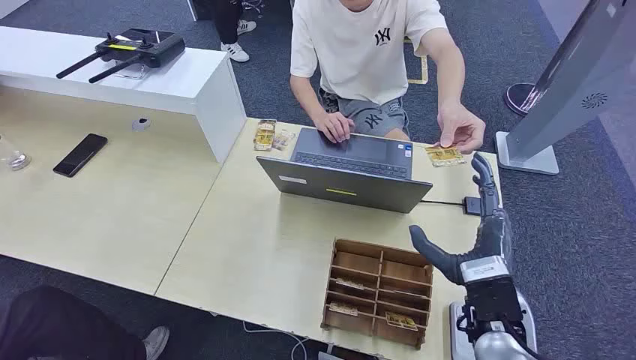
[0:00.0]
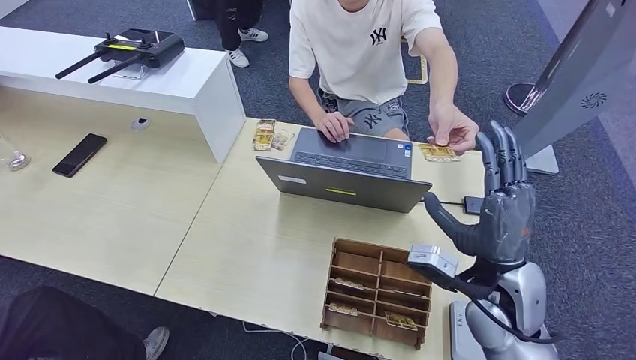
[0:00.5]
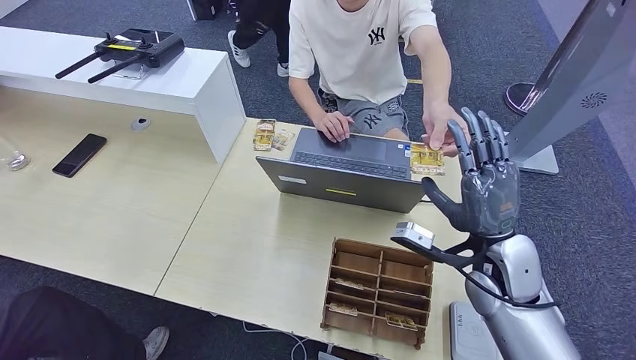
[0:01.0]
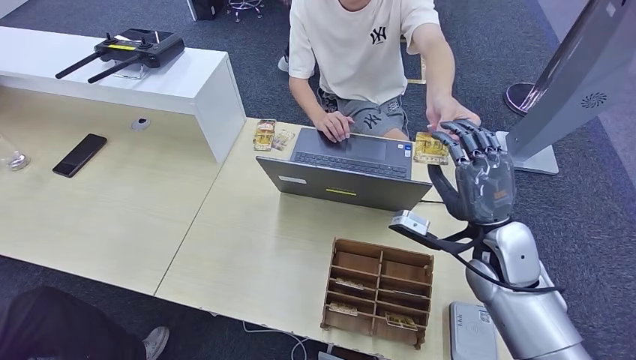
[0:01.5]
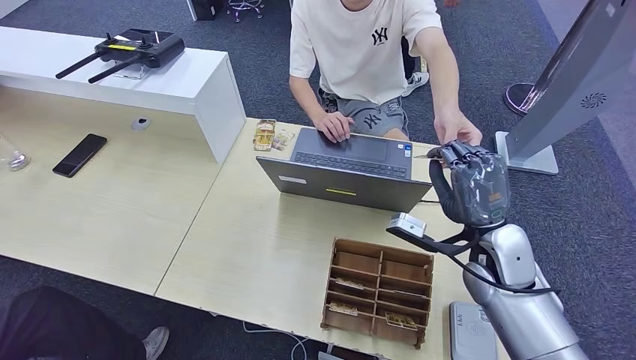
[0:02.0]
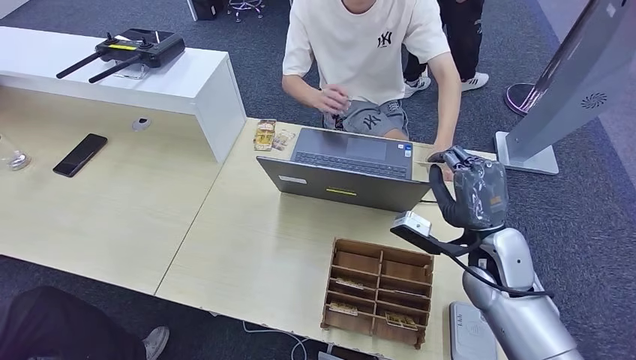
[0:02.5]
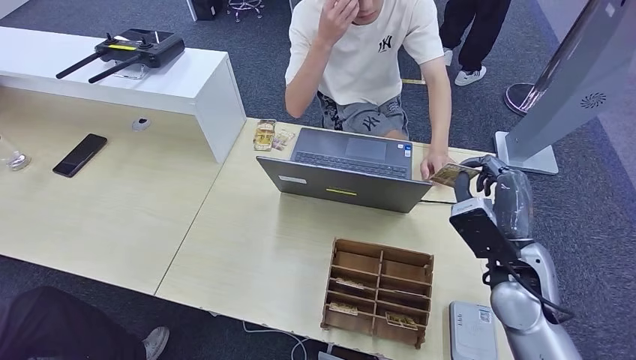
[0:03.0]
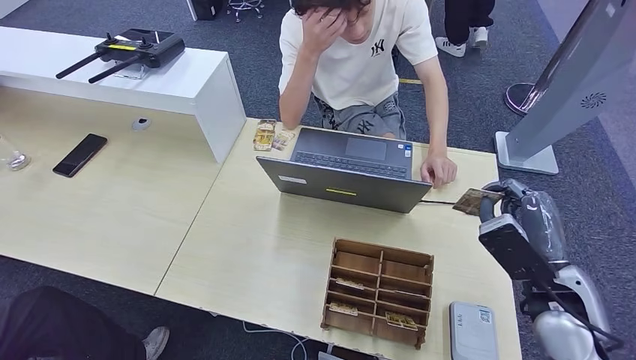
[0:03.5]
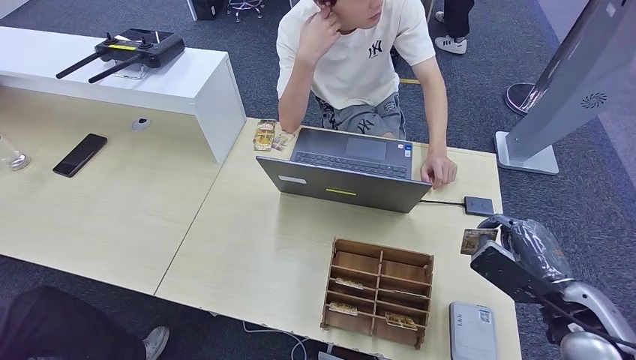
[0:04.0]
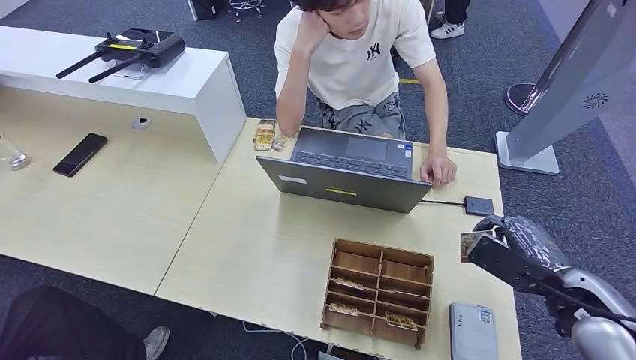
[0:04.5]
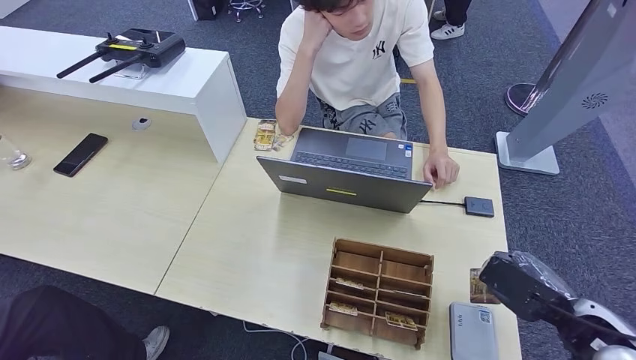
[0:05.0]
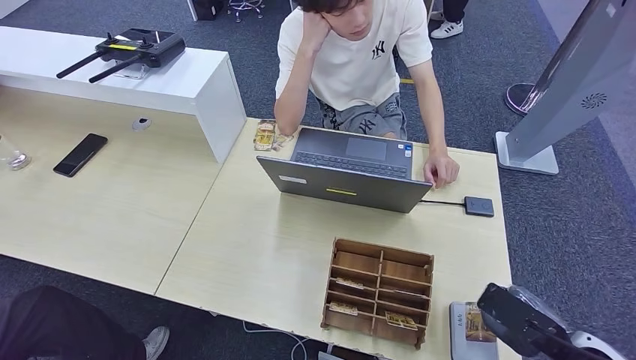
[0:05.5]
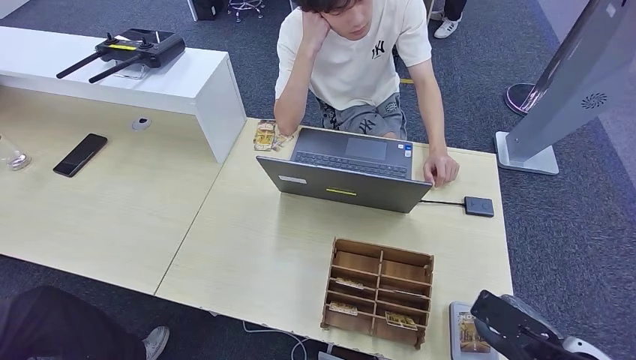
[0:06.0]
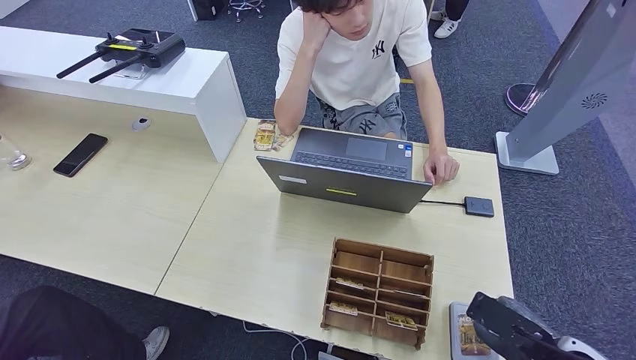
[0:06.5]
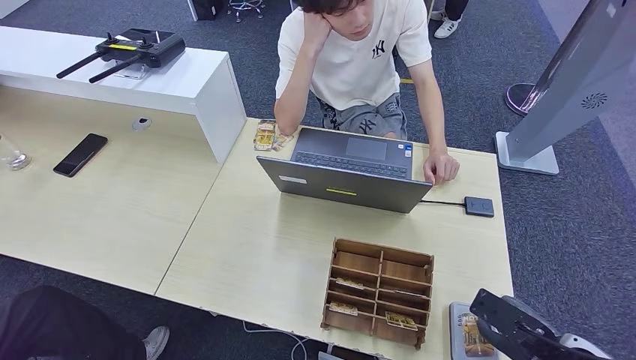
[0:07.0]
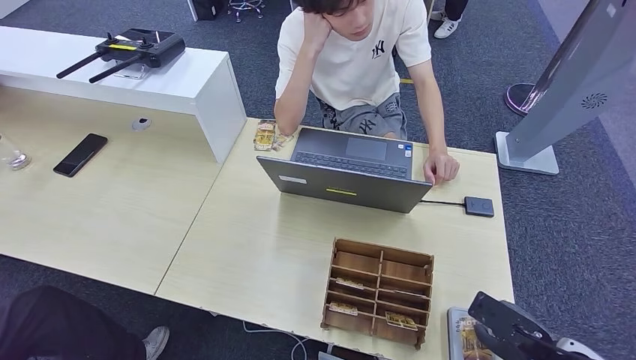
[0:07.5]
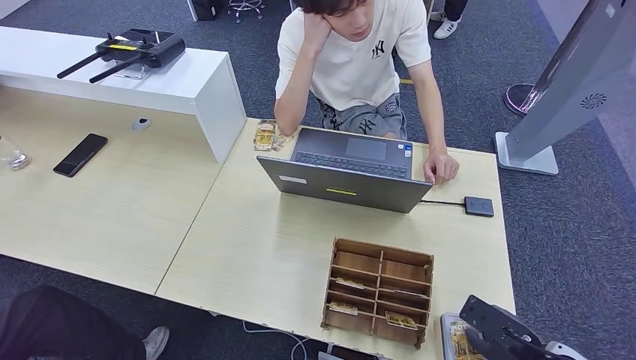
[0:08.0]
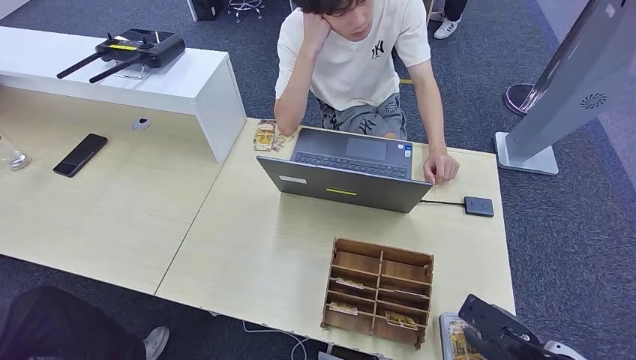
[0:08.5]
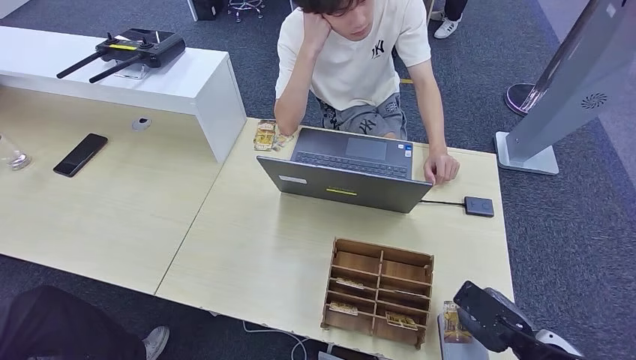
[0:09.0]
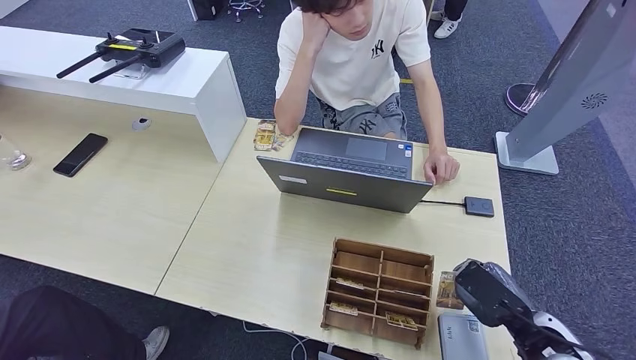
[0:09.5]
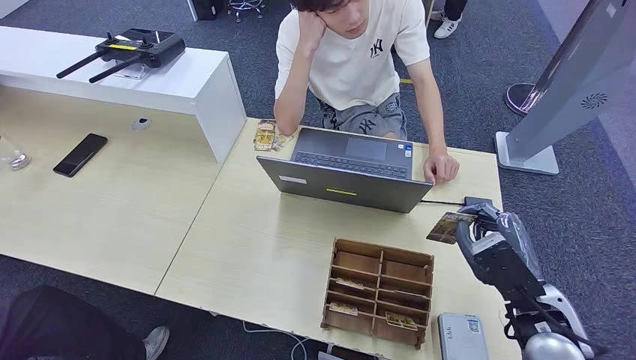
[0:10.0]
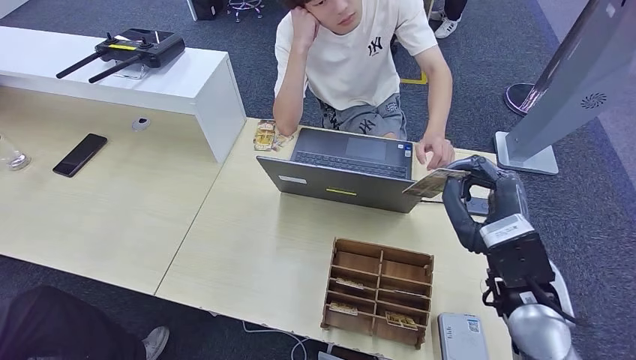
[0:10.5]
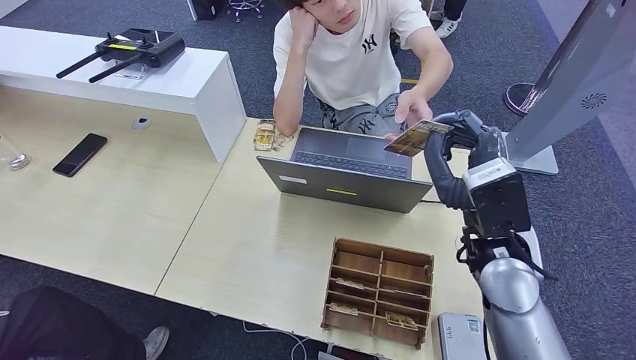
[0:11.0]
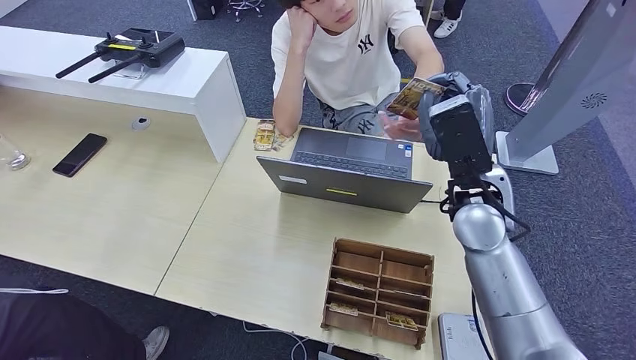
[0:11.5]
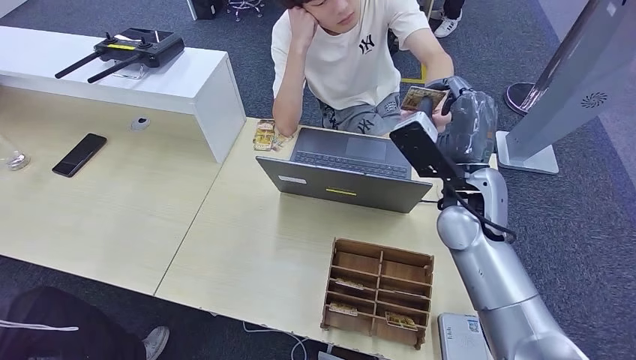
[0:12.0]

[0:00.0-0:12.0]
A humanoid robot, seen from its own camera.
Step, 0:00.0 to 0:02.0: Take the ID card from the person's hand.
Step, 0:02.5 to 0:07.0: Place the ID card on the card reader.
0:02.0 to 0:04.0: The right hand shifts some 15 cm to the right and backward.
0:04.0 to 0:06.0: The right hand heads backward, covering about 5 cm.
0:06.0 to 0:08.0: The hands move only a little.
0:08.0 to 0:10.0: The right hand moves to the left, upward and forward, approximately 15 cm.
0:10.0 to 0:12.0: The right hand shifts some 20 cm to the left, forward and upward.

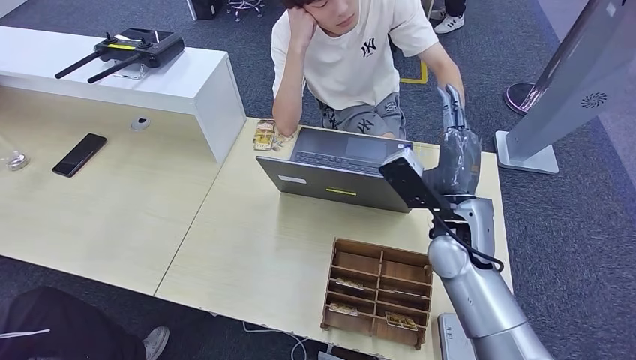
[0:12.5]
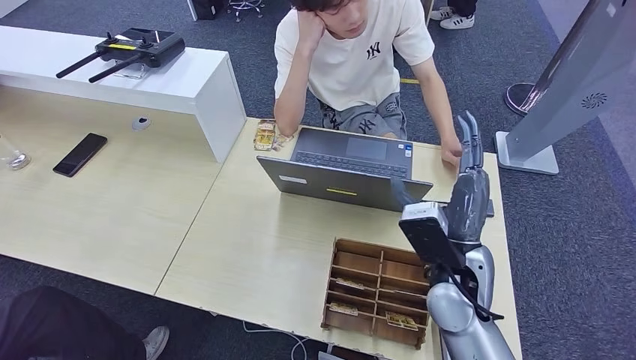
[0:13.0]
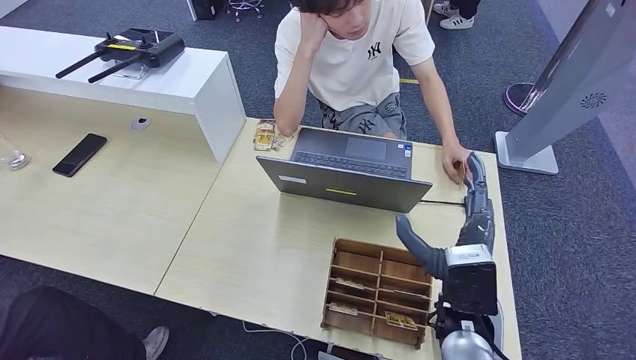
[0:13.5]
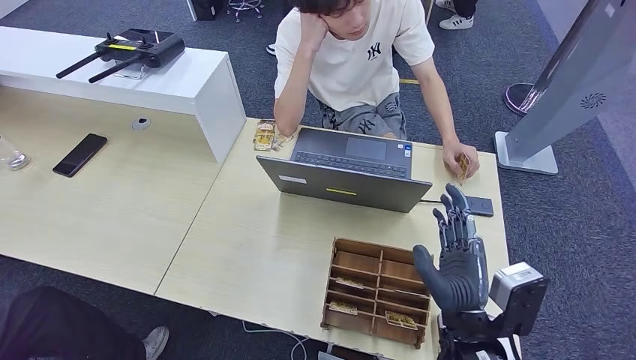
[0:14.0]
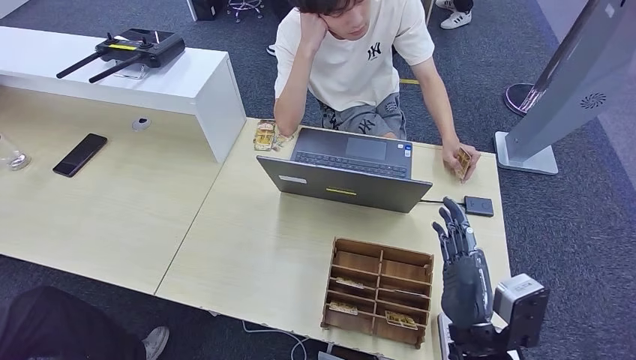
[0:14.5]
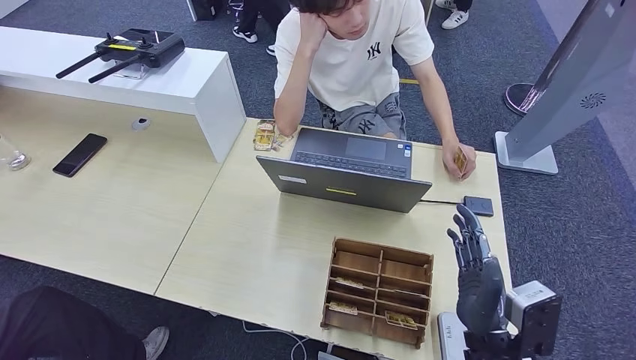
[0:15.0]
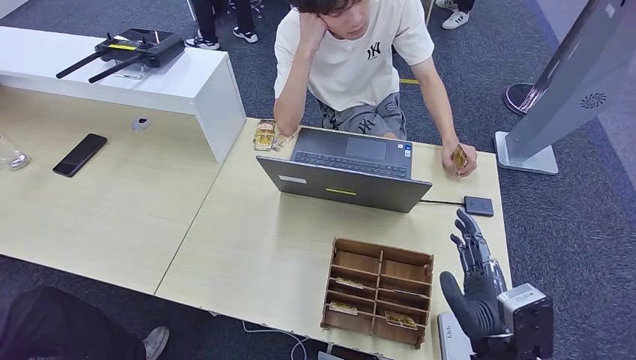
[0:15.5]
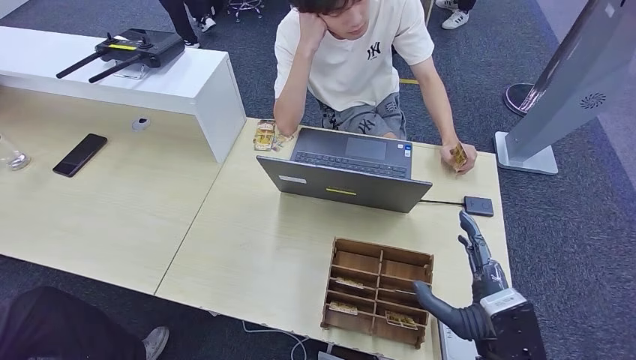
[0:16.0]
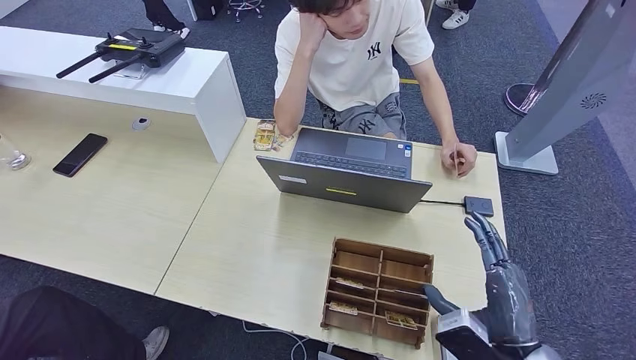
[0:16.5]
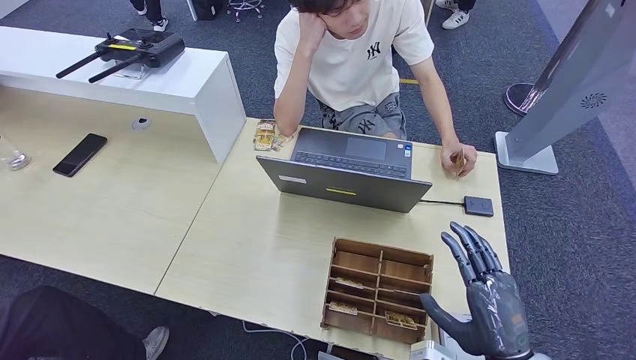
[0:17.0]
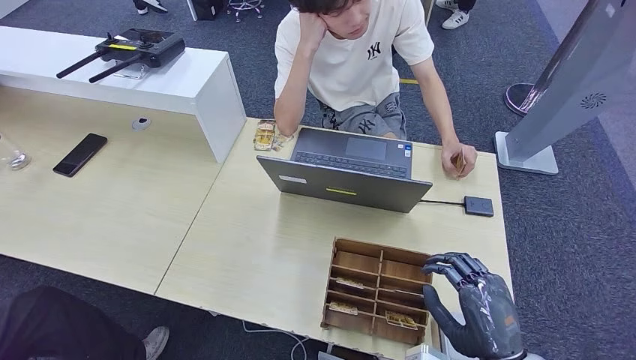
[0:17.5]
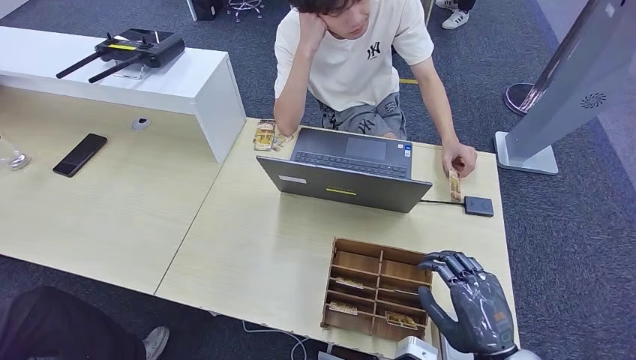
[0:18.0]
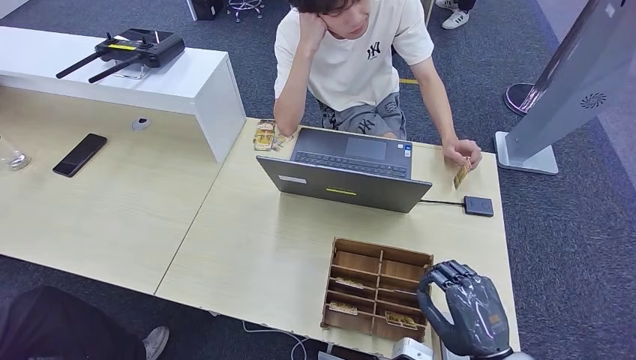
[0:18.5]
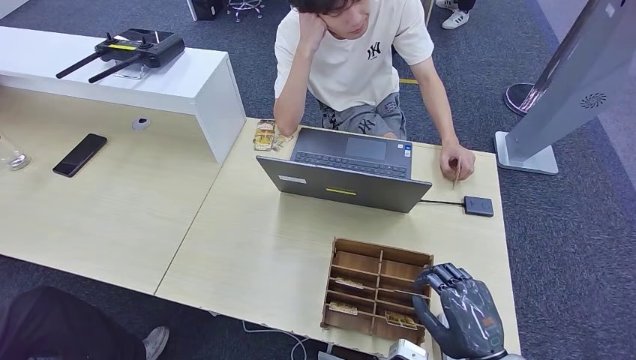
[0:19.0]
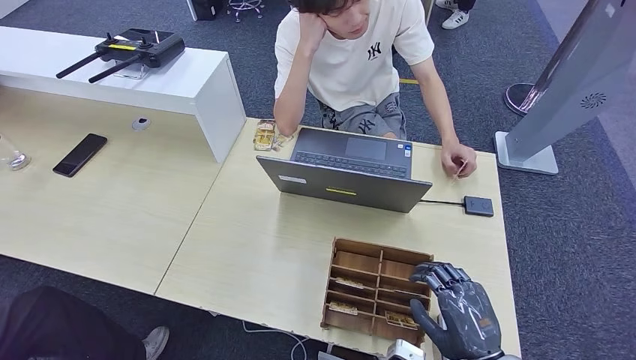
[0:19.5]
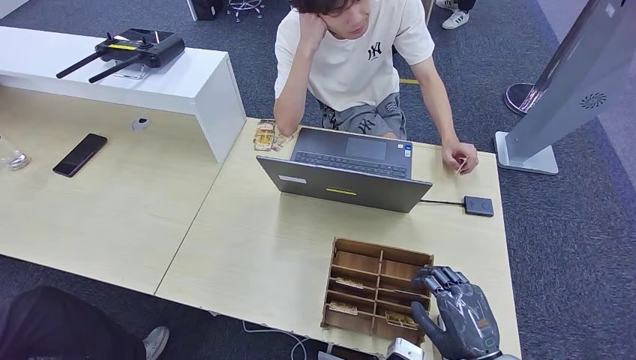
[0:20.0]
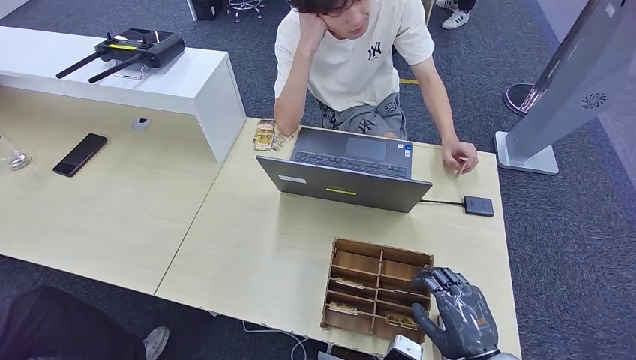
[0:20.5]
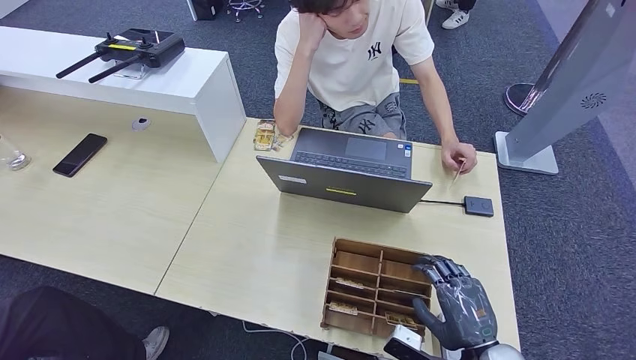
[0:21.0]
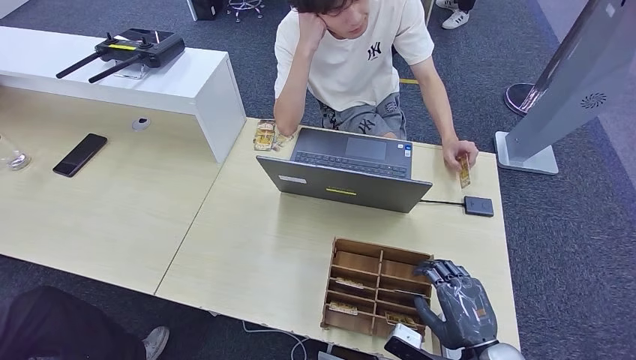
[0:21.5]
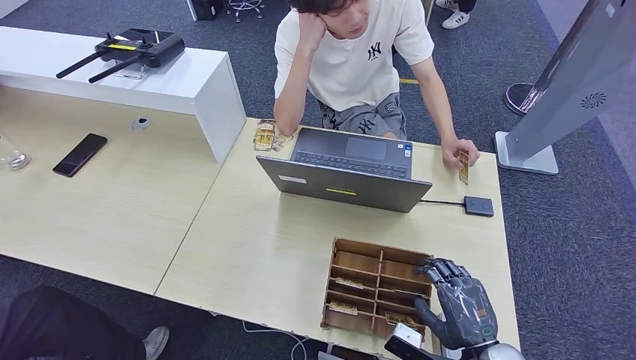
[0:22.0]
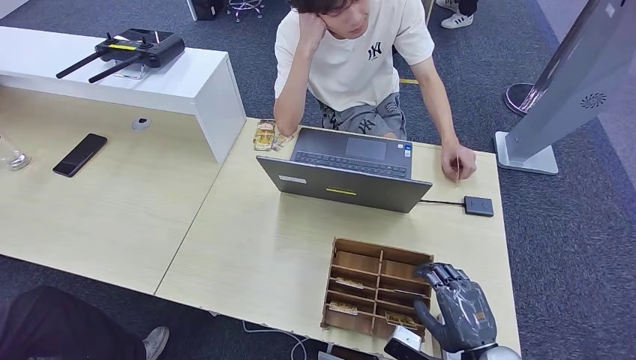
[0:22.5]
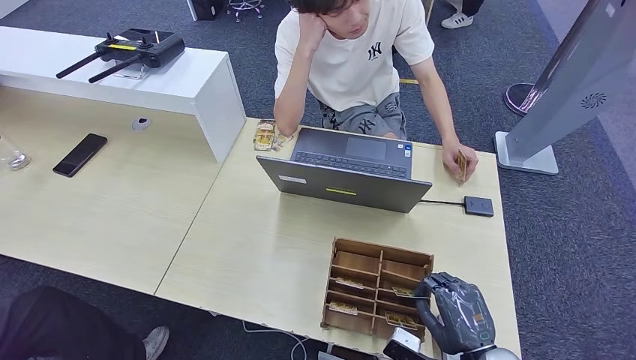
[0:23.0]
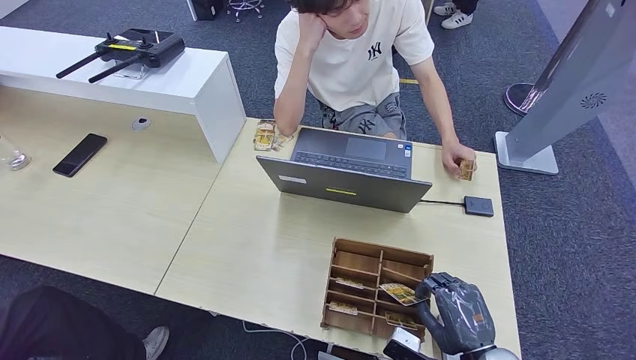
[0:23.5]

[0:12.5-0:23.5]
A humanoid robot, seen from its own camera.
0:12.5 to 0:14.5: The right hand shifts some 15 cm backward.
0:14.5 to 0:16.0: The hands move only a little.
0:18.0 to 0:21.5: The hands stay close to where they were, moving slightly.
0:21.5 to 0:23.5: The two hands keep their place.
